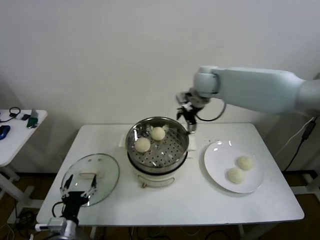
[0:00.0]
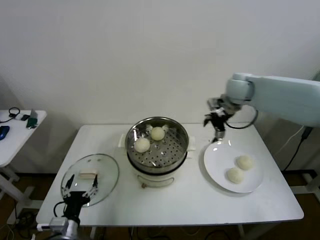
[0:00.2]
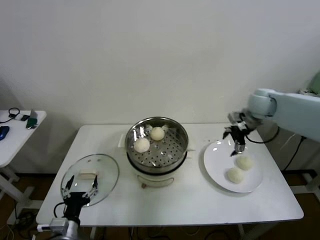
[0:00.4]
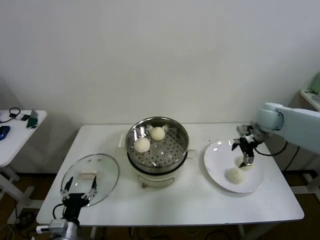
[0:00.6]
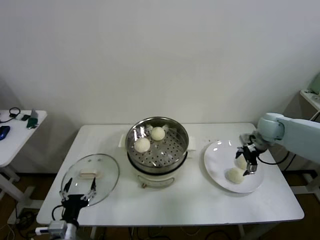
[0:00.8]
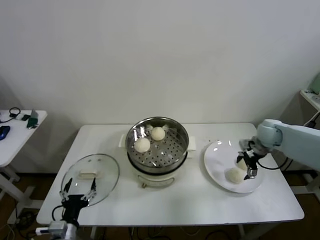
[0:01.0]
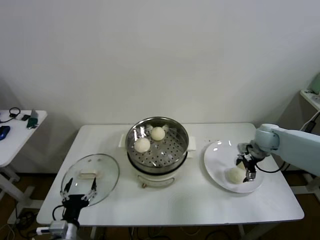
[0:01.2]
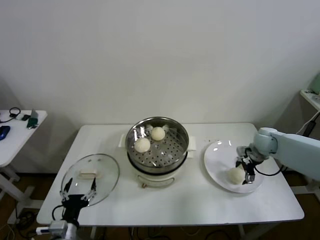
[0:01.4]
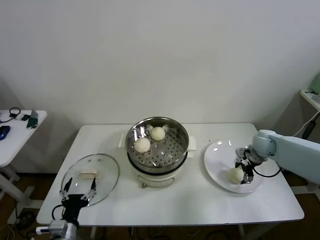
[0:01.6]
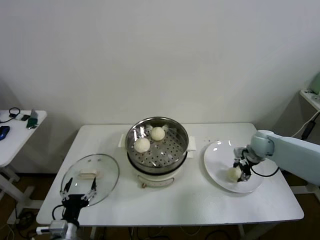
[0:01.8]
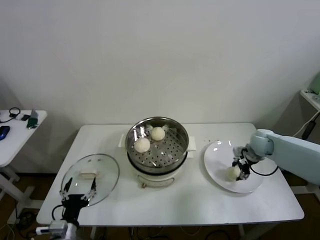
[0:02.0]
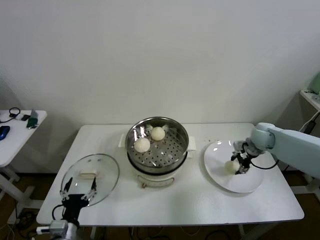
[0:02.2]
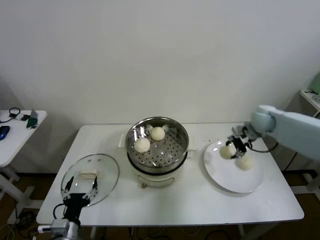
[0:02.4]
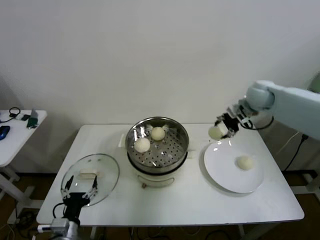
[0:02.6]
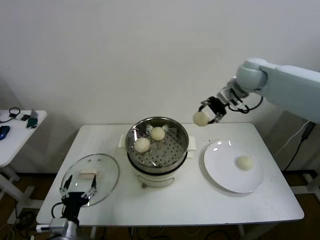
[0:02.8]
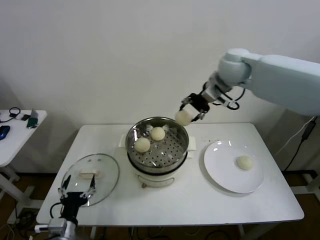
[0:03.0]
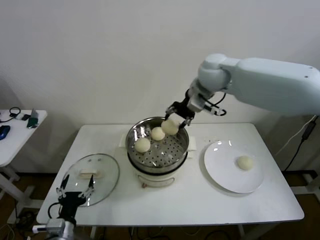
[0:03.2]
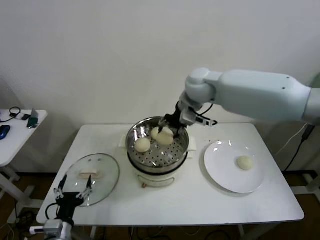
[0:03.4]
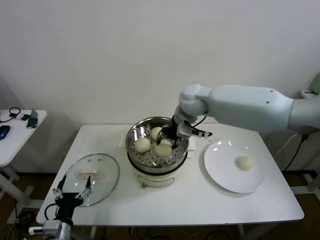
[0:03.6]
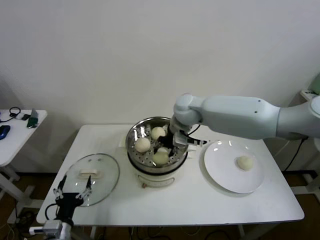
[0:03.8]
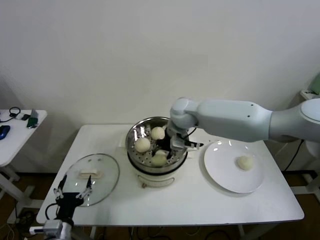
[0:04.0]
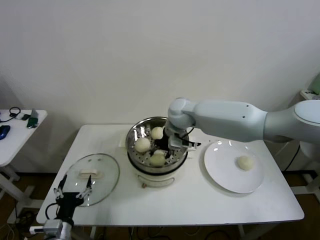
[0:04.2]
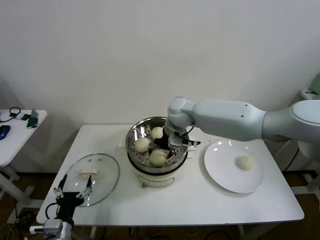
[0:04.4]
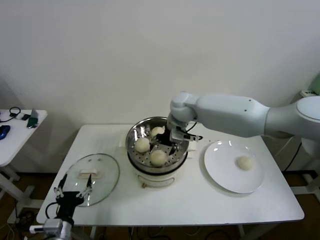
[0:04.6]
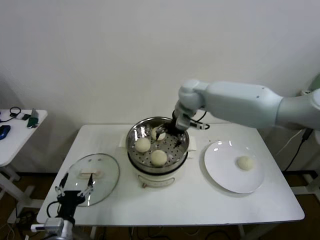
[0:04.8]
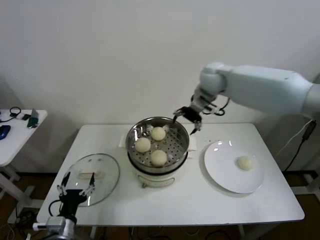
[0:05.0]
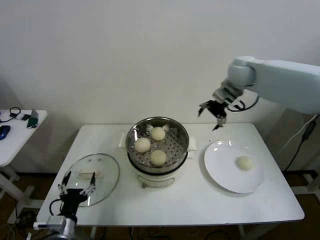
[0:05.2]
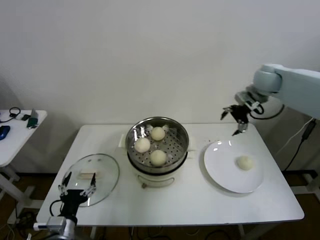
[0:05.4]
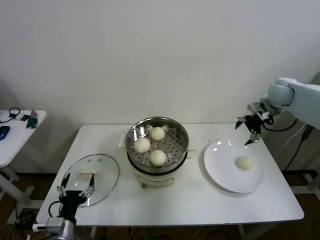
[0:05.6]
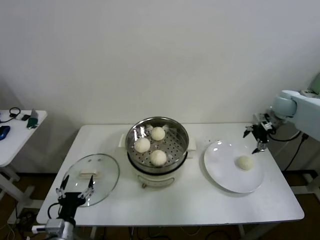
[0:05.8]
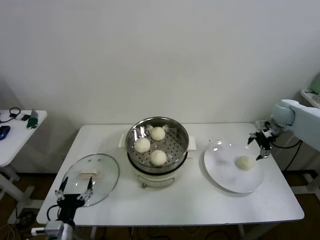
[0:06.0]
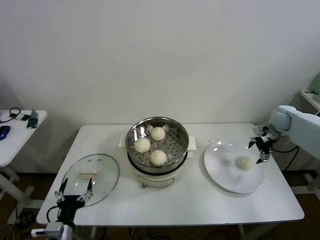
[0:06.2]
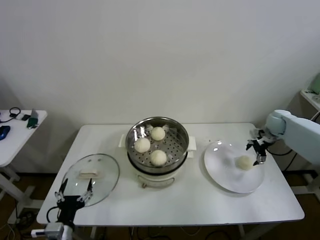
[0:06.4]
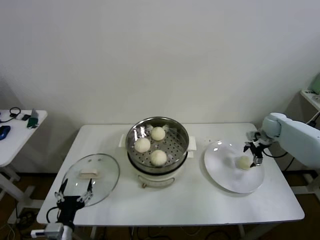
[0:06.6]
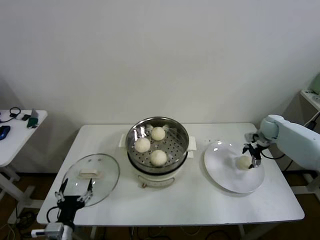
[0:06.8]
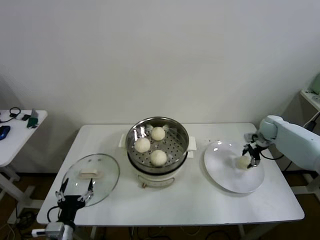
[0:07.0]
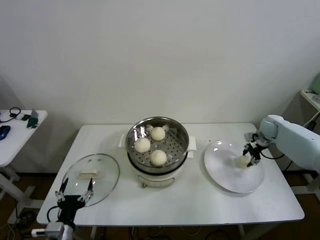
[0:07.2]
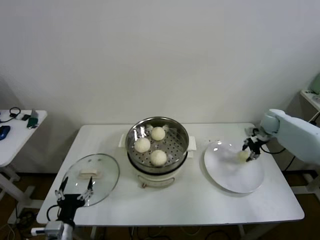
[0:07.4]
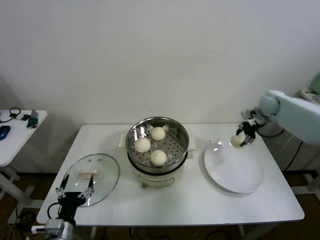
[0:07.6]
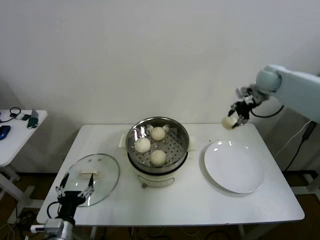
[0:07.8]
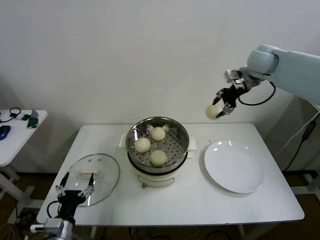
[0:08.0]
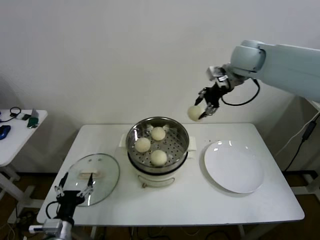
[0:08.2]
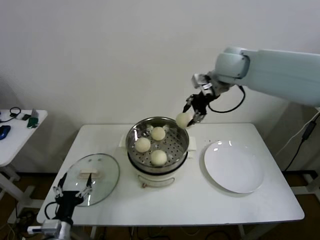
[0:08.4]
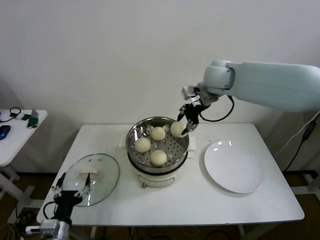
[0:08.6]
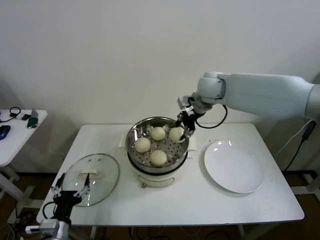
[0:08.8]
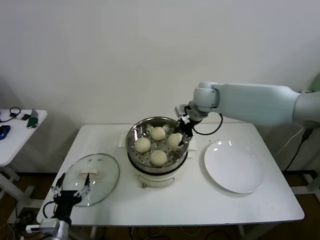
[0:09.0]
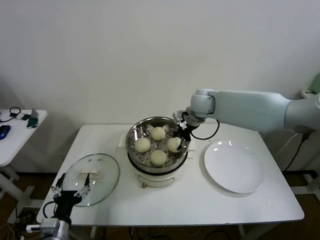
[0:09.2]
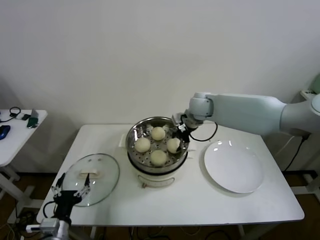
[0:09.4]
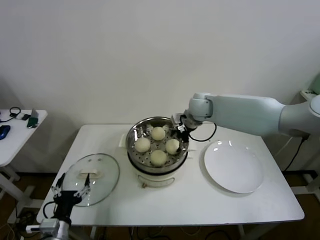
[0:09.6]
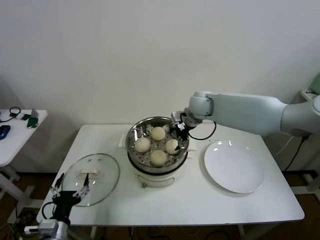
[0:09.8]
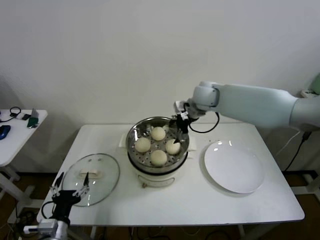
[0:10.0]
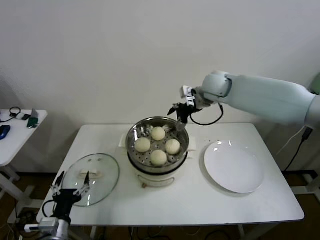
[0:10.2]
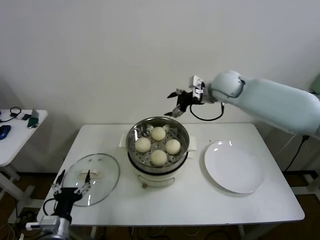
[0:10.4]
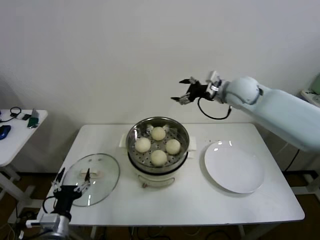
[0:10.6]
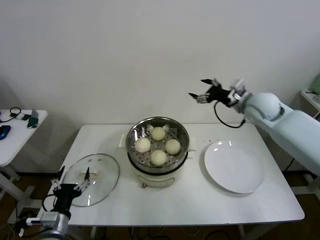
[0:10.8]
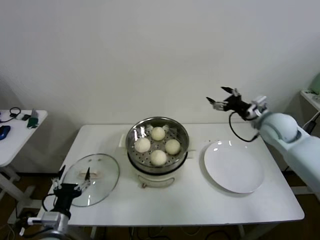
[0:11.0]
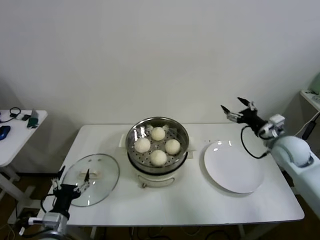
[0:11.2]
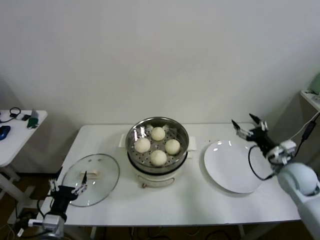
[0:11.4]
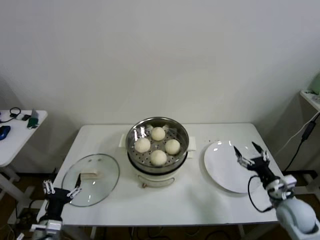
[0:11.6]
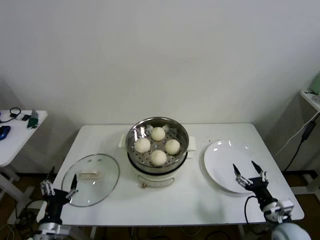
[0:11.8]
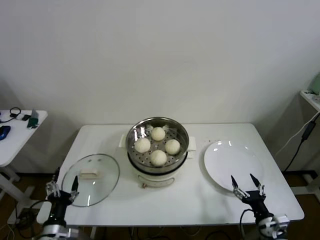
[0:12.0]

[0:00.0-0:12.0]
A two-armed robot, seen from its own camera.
Step, 0.0 to 1.6 s: Grasp the baozi in the plate with right gripper.
Step, 1.8 to 4.4 s: Place the baozi on the steamer with right gripper.
Step, 4.6 to 7.0 s: Grasp the baozi in the plate with right gripper.
Step, 7.4 to 9.6 s: Place the baozi on the steamer with right gripper.
0.0 to 1.6 s: The right gripper travels downward and to the right by approximately 30 cm, and closes its fingers.
1.6 to 3.0 s: The right gripper heads upward and to the left, covering about 35 cm, and closes its fingers.
3.0 to 4.4 s: The right gripper is displaced downward and to the left by approximately 20 cm, and opens.
4.4 to 6.0 s: The right gripper moves to the right, about 40 cm.
6.0 to 7.6 s: The right gripper moves to the left, about 5 cm, moves approximately 10 cm downward and comes back, and closes its fingers.
7.6 to 9.0 s: The right gripper travels to the left by about 25 cm.
9.0 to 10.4 s: The right gripper is displaced to the right by about 5 cm, and opens up.
10.4 to 12.0 s: The right gripper goes roughly 50 cm backward, downward and to the right. Meanwhile the left gripper travels downward by approximately 5 cm.

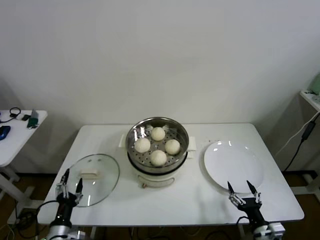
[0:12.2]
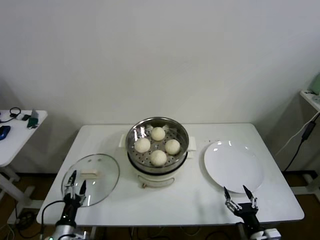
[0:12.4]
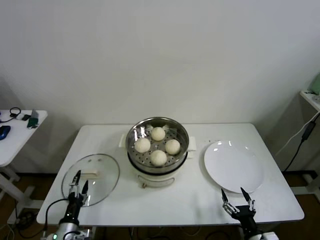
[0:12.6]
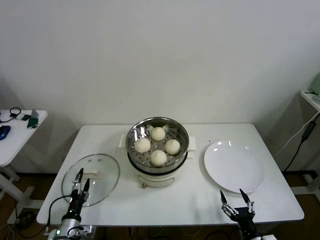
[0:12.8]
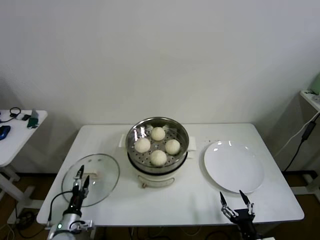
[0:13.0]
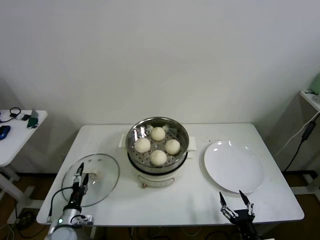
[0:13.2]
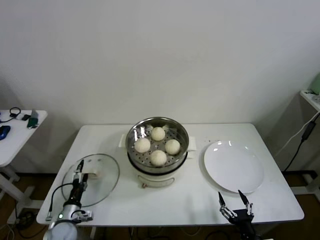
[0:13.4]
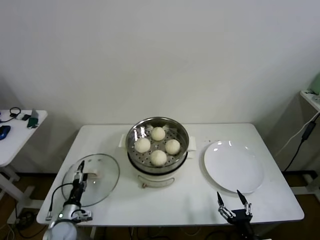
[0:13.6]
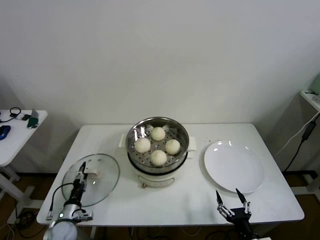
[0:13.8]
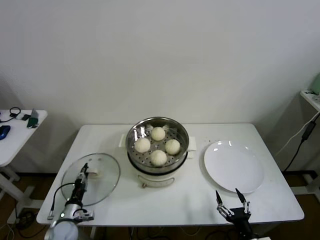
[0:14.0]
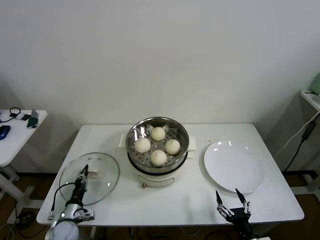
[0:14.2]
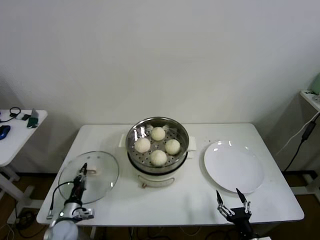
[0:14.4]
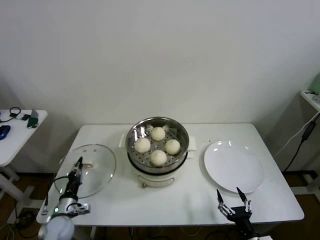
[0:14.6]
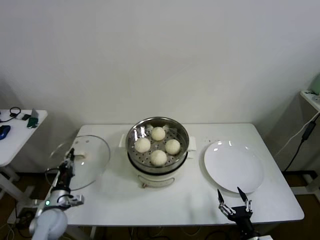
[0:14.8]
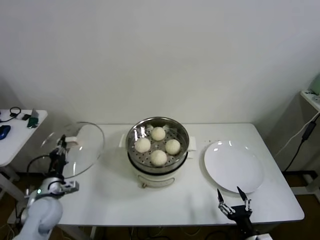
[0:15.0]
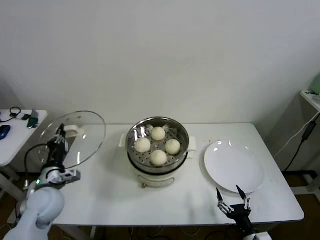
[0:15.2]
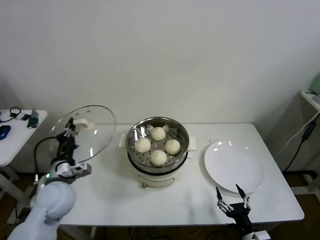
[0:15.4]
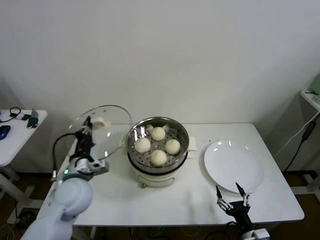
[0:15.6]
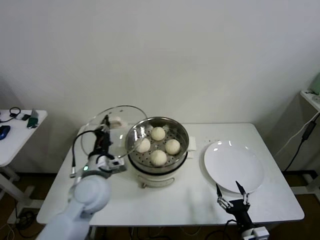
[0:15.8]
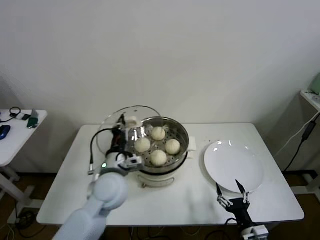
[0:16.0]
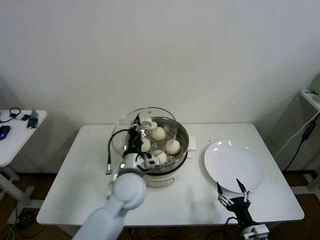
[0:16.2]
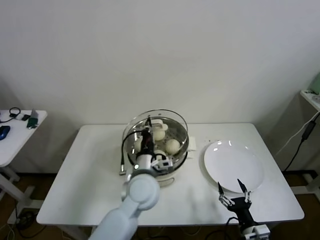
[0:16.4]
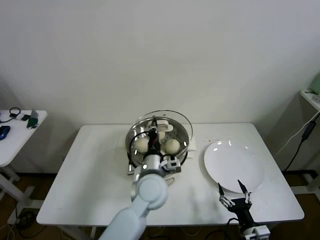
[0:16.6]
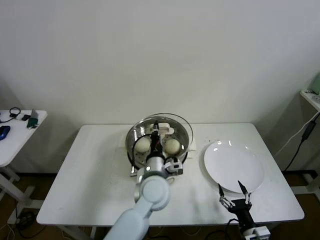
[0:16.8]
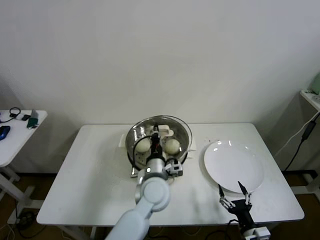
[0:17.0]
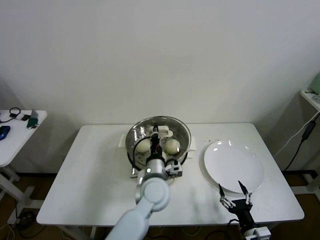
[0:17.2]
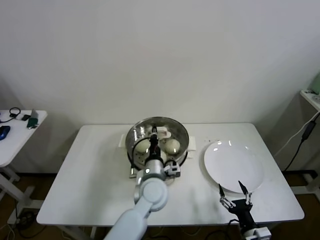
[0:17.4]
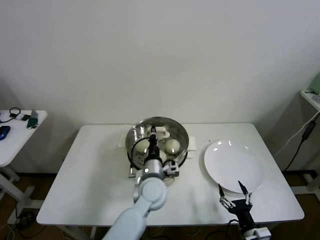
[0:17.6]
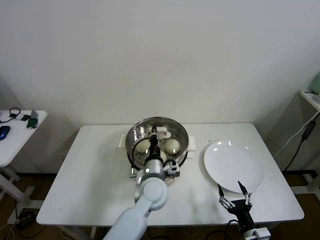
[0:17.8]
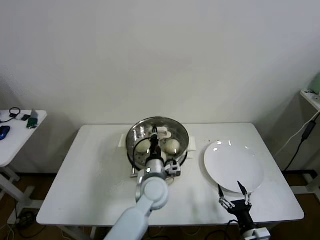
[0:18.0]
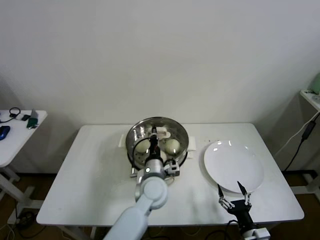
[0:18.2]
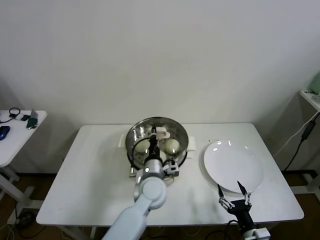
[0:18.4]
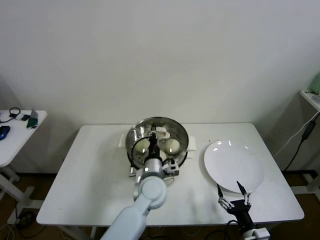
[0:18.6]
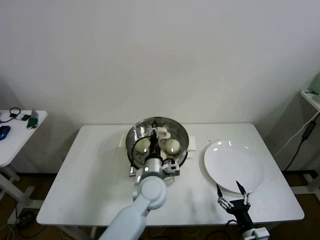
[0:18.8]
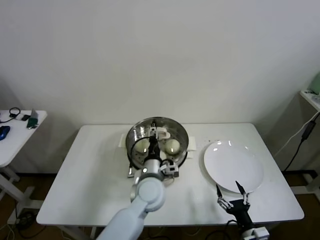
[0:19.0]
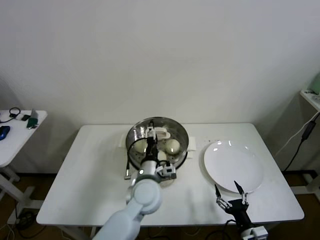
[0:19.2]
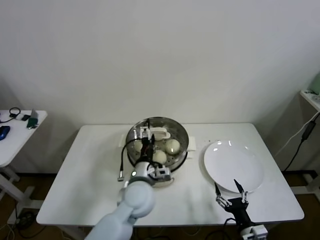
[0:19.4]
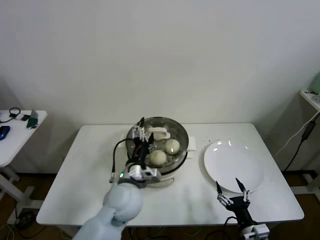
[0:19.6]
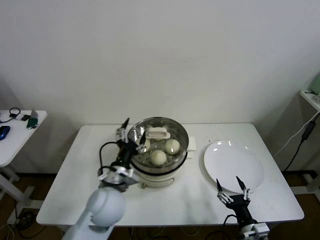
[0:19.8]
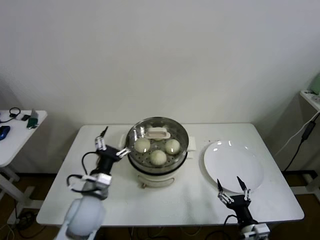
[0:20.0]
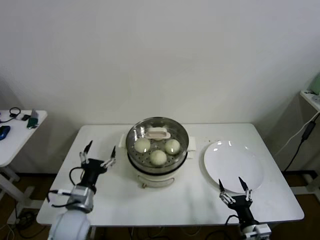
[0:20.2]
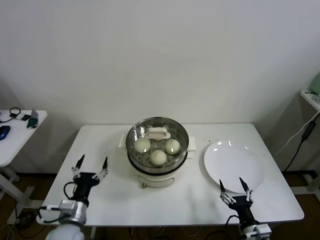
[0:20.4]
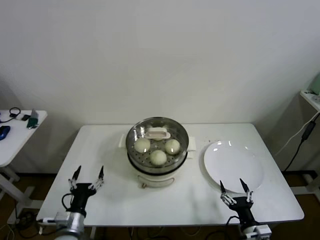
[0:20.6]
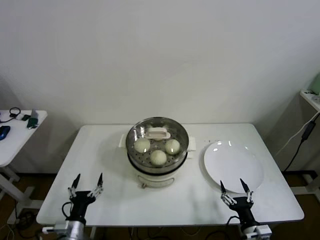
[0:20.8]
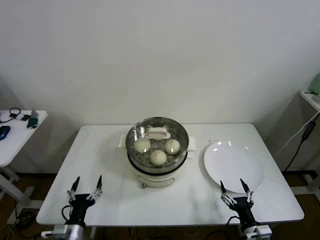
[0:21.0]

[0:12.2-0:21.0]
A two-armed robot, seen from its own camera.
Step, 12.2 to 14.2 s: Grasp the pot lid with left gripper.
Step, 14.4 to 18.6 s: Place the pot lid on the steamer with left gripper.
12.2 to 13.6 s: The left gripper heads forward and downward, covering approximately 10 cm. The right gripper changes place by some 5 cm.
13.6 to 15.2 s: The left gripper moves upward, approximately 20 cm, and closes up.
15.2 to 16.6 s: The left gripper moves to the right, about 30 cm.
16.6 to 18.0 s: The left gripper heads downward, covering about 5 cm.
18.0 to 19.6 s: The left gripper is displaced to the left by about 5 cm, and opens its fingers.
19.6 to 21.0 s: The left gripper heads to the left, downward and backward, covering roughly 30 cm.

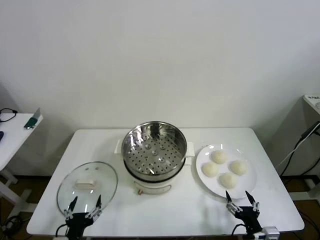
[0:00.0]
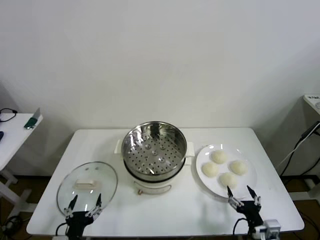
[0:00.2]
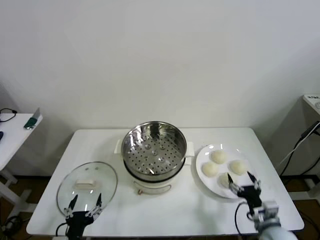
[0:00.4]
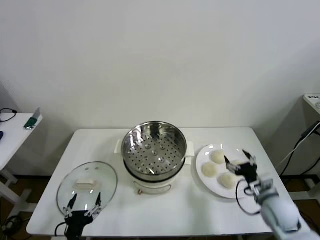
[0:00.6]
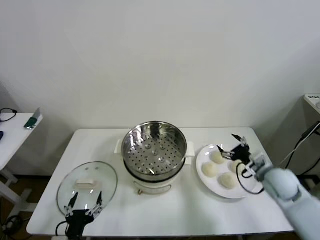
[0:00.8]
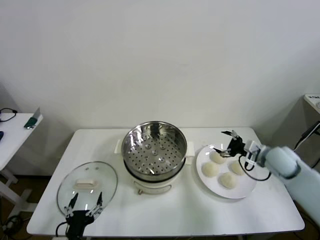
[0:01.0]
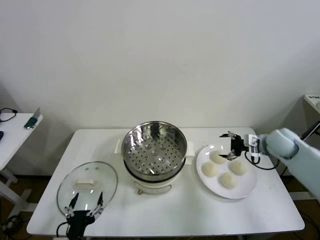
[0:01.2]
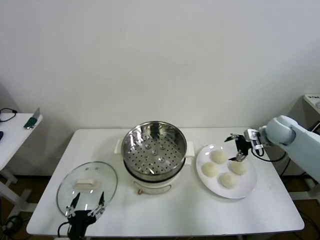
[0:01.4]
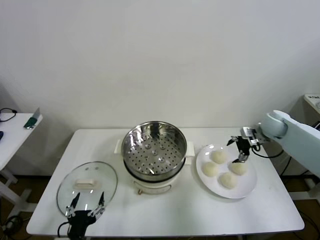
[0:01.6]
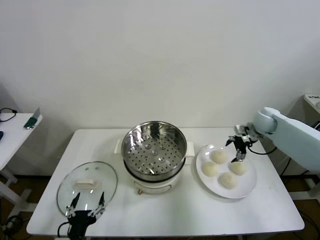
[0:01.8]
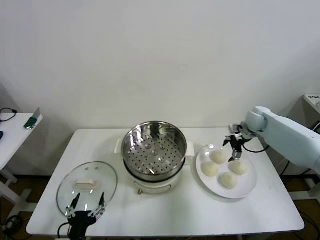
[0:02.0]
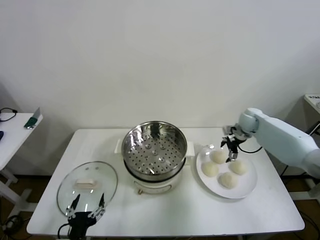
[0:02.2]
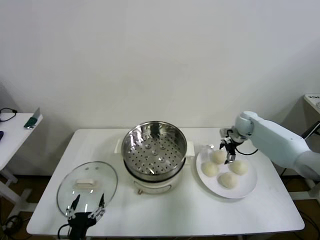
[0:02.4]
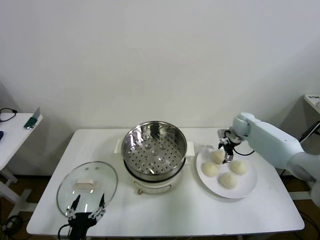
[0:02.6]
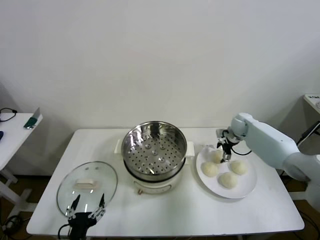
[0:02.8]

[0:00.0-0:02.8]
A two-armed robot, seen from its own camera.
1.4 to 2.8 s: The right gripper heads forward, downward and to the left, covering roughly 15 cm, and closes.
